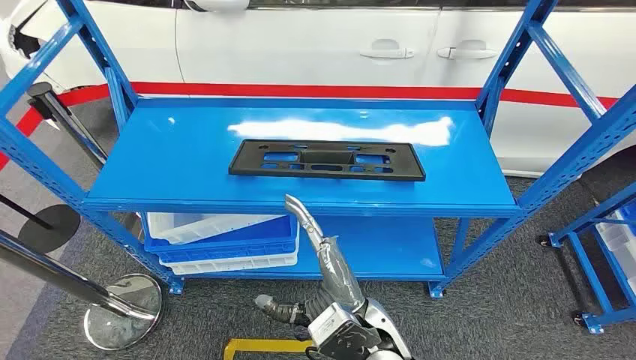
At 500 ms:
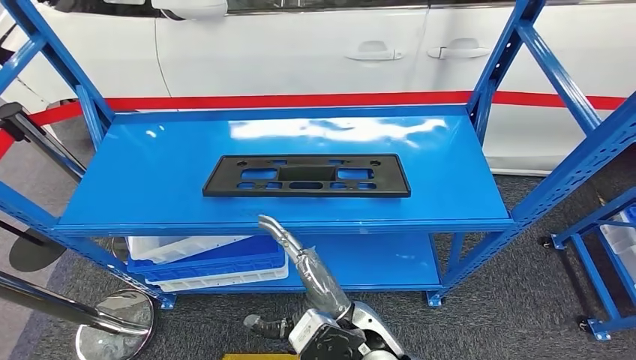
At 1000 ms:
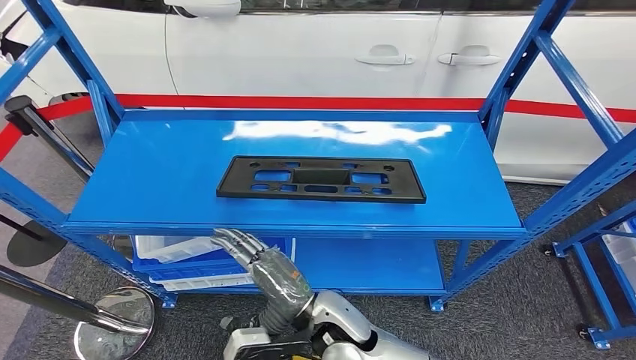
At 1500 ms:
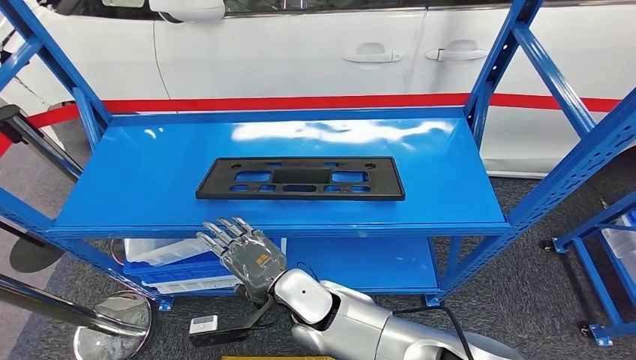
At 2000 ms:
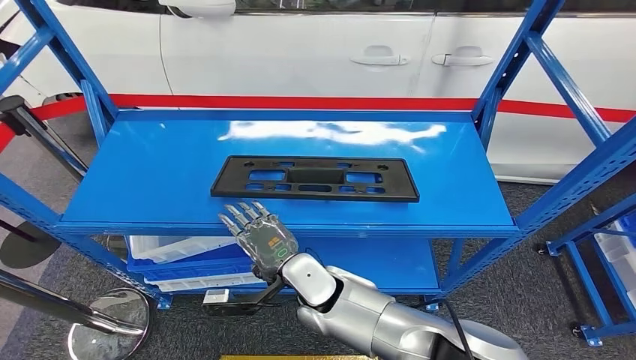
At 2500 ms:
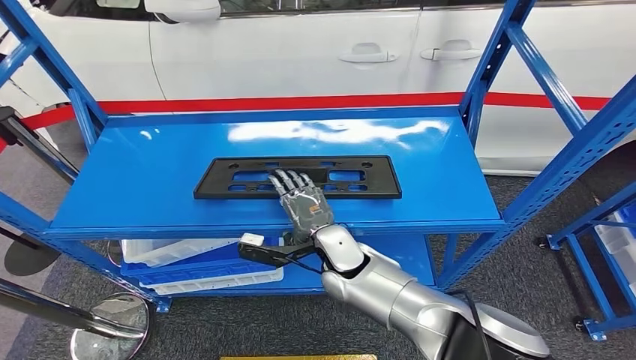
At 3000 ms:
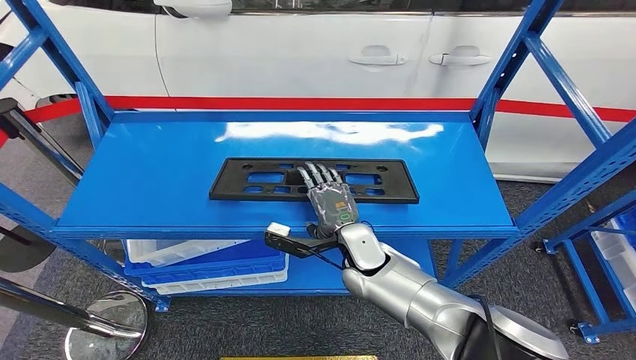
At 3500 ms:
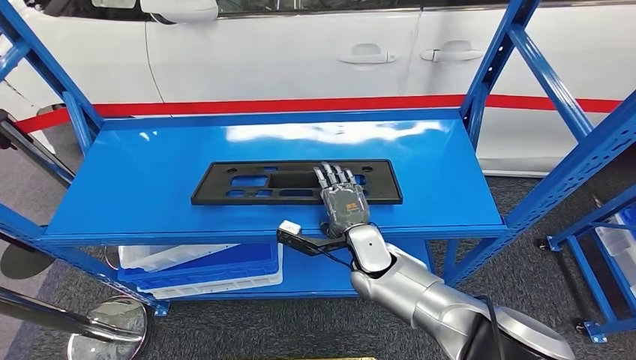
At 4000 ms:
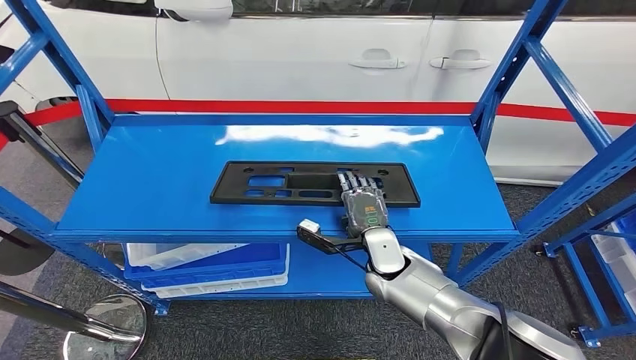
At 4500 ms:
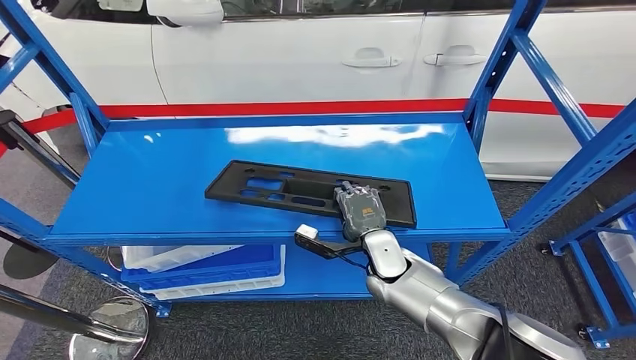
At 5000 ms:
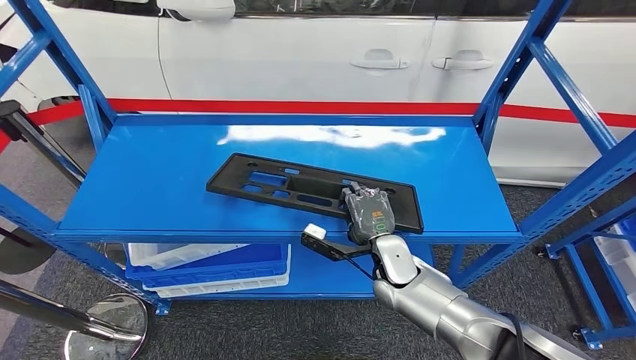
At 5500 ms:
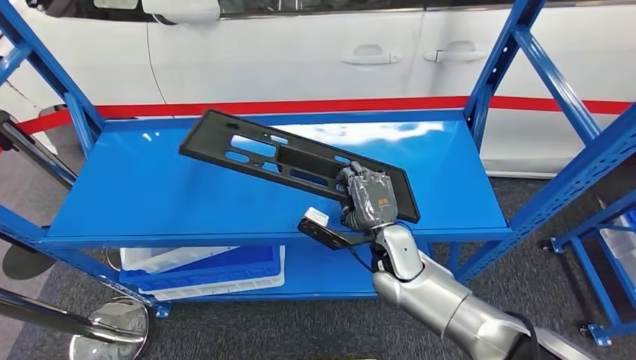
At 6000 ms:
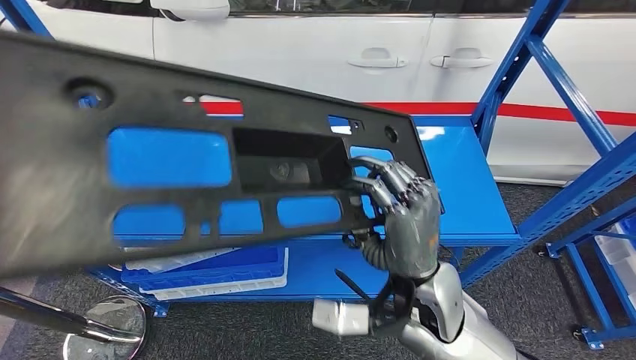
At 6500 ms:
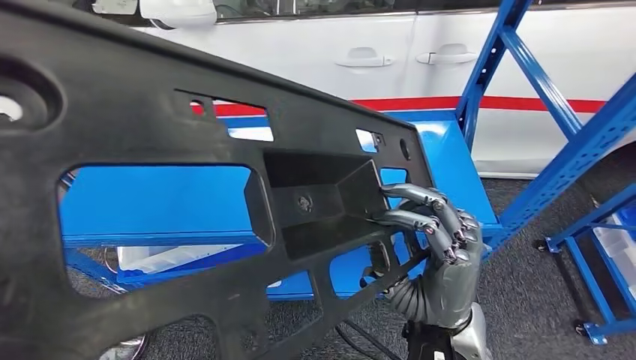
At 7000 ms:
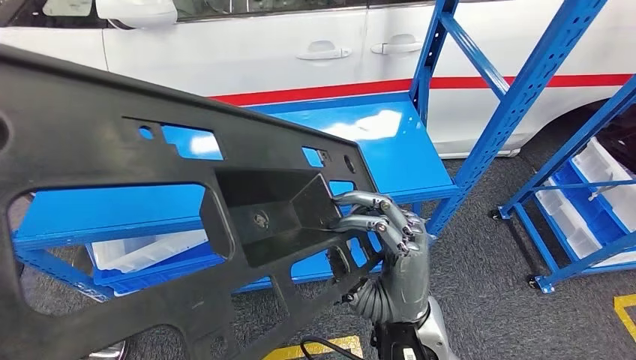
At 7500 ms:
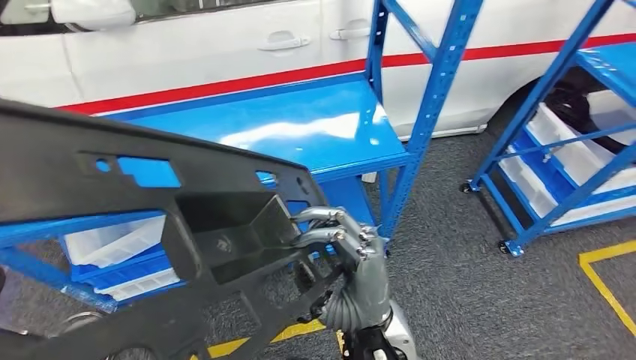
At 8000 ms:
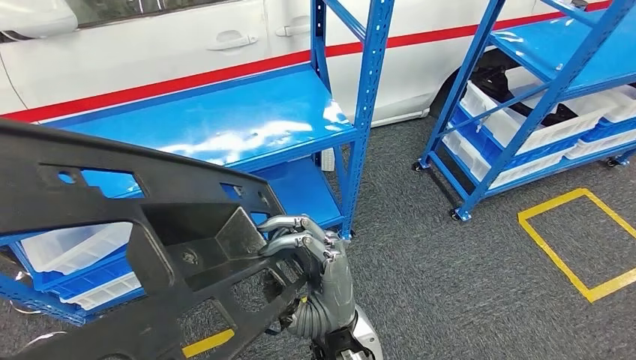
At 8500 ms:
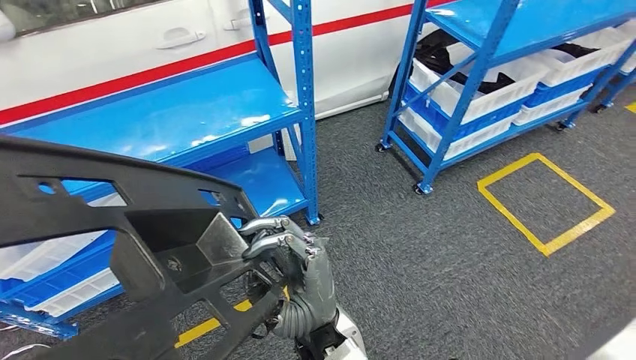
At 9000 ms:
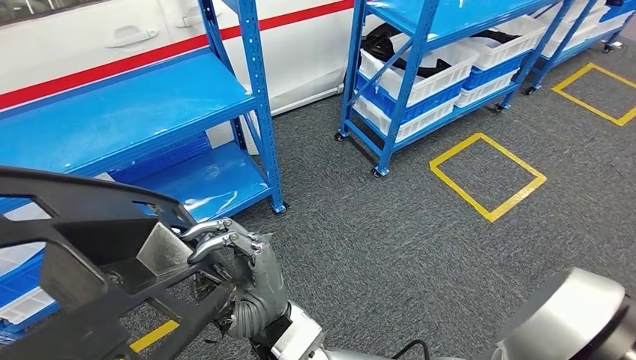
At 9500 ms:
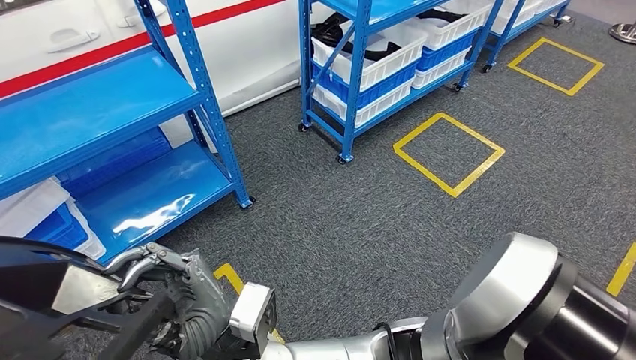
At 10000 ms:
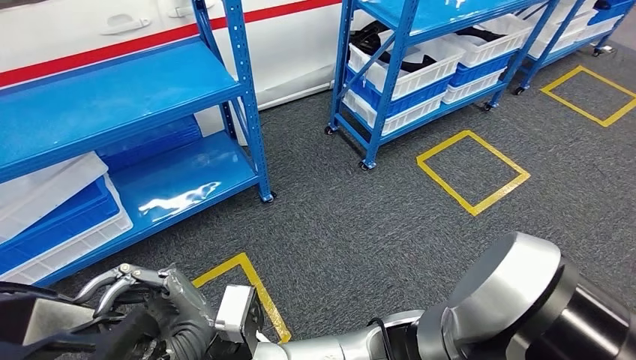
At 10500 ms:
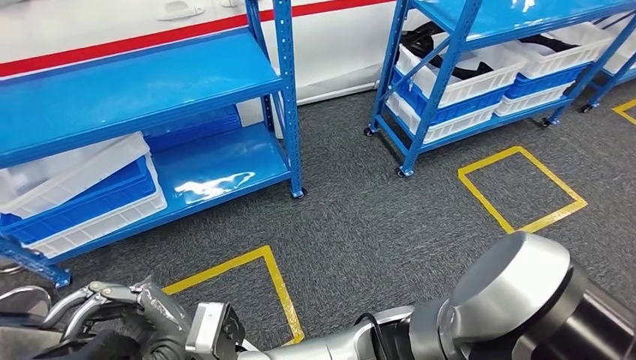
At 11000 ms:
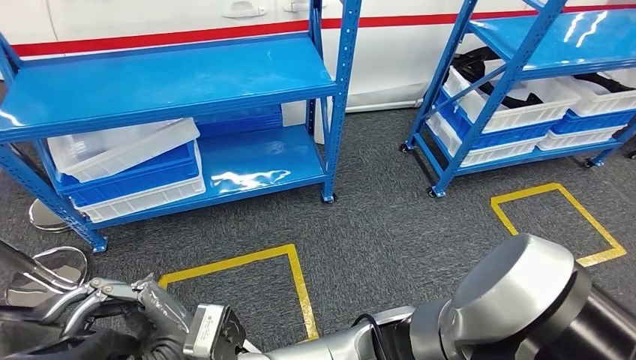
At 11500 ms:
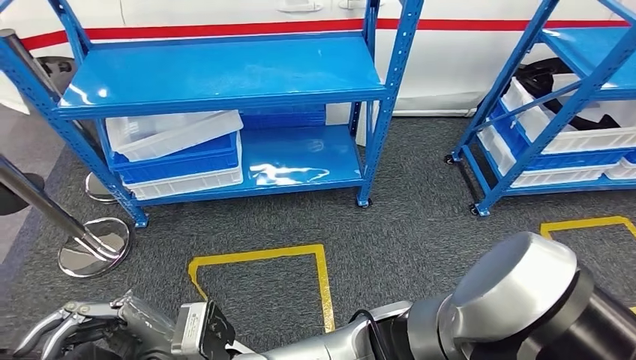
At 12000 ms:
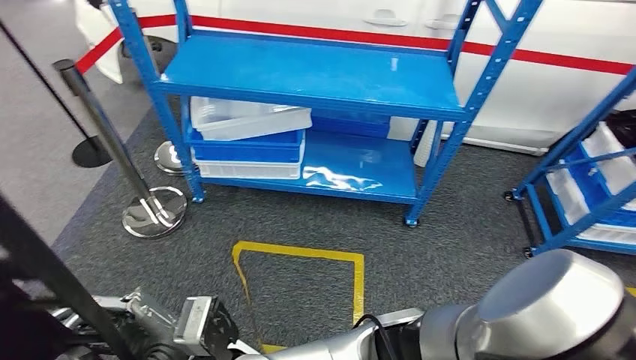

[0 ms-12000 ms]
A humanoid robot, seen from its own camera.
Step, 0 ms to 8500 ms: Pick up the large material from the shelf.

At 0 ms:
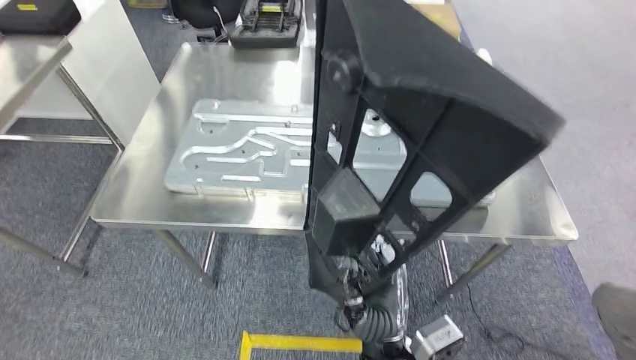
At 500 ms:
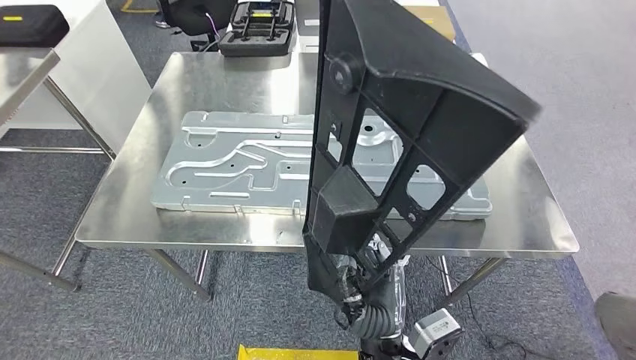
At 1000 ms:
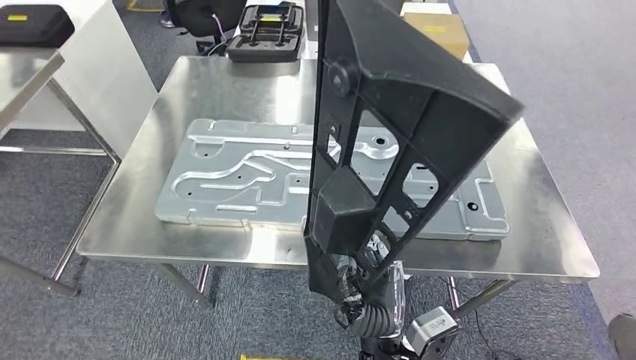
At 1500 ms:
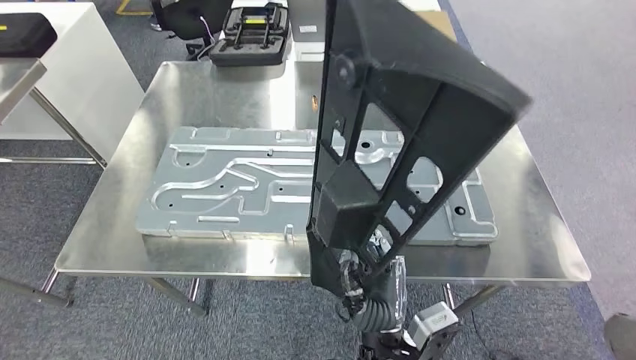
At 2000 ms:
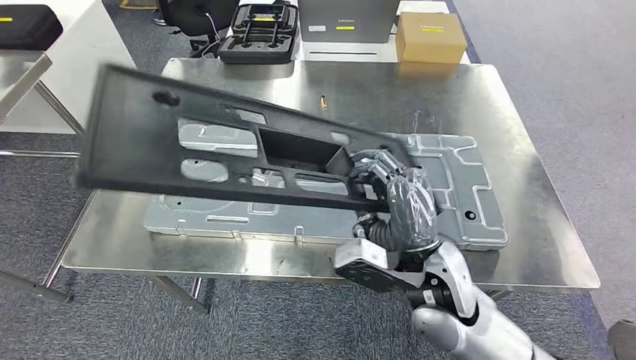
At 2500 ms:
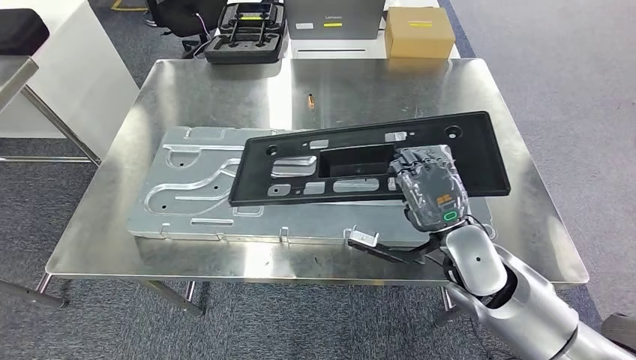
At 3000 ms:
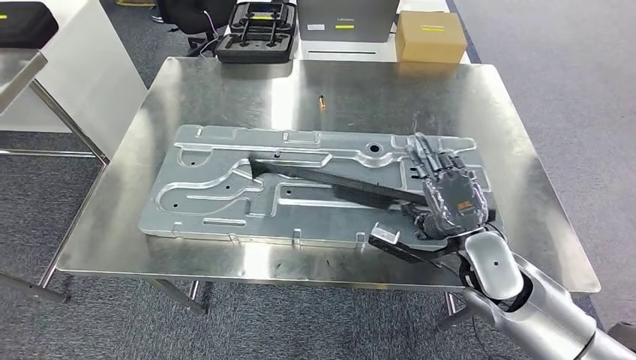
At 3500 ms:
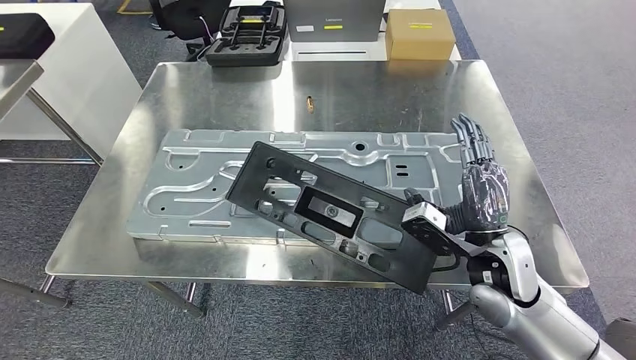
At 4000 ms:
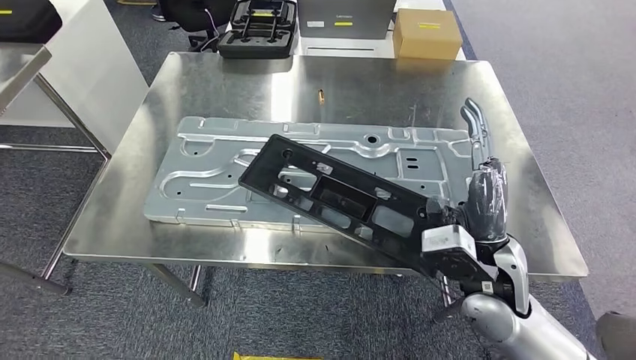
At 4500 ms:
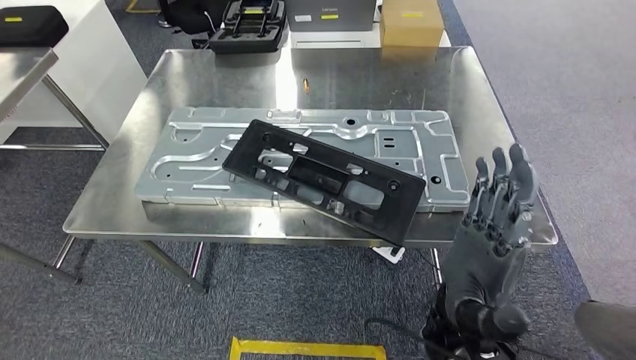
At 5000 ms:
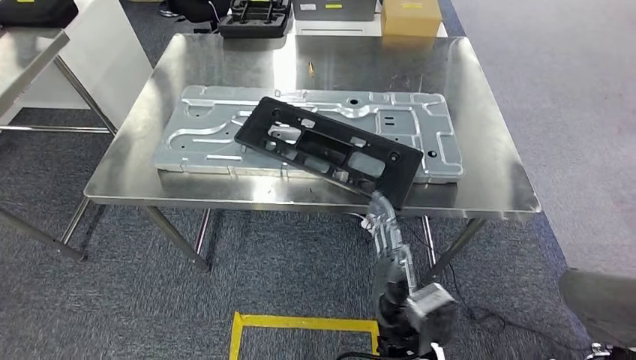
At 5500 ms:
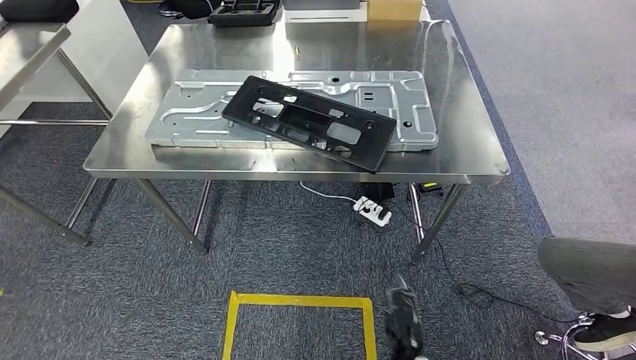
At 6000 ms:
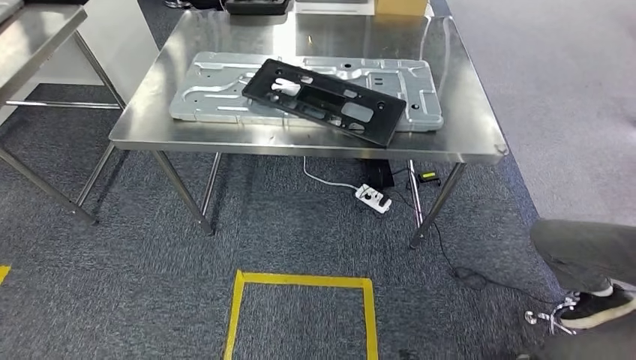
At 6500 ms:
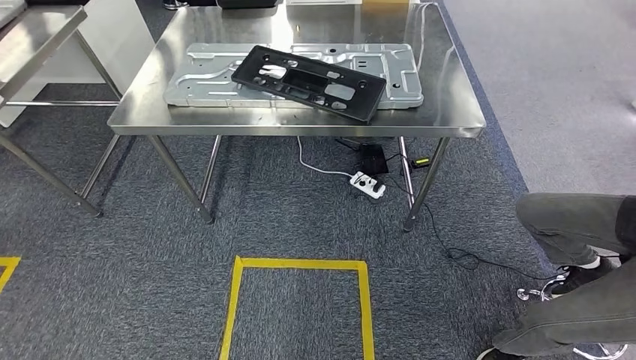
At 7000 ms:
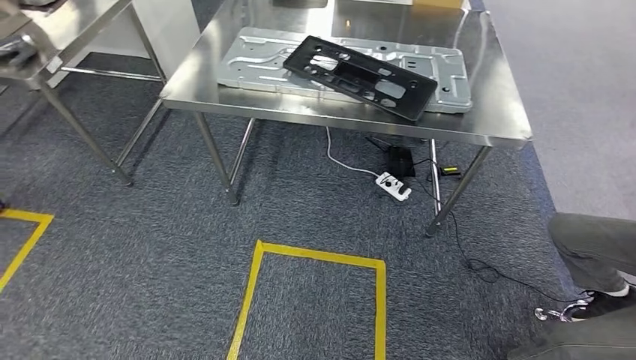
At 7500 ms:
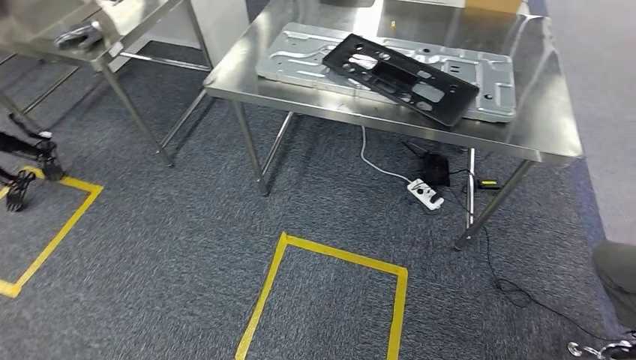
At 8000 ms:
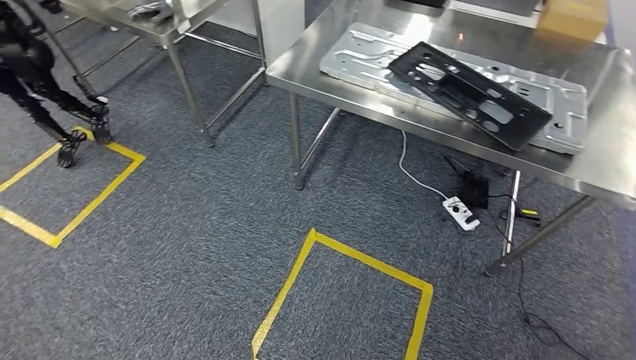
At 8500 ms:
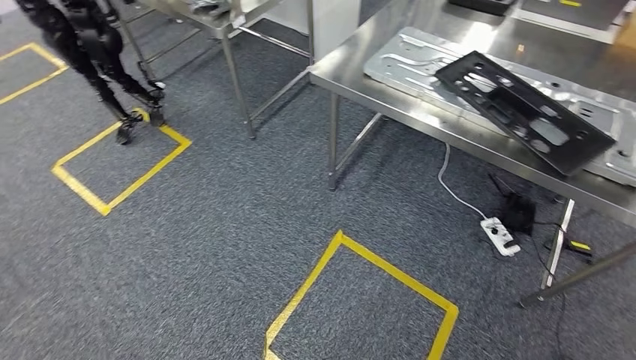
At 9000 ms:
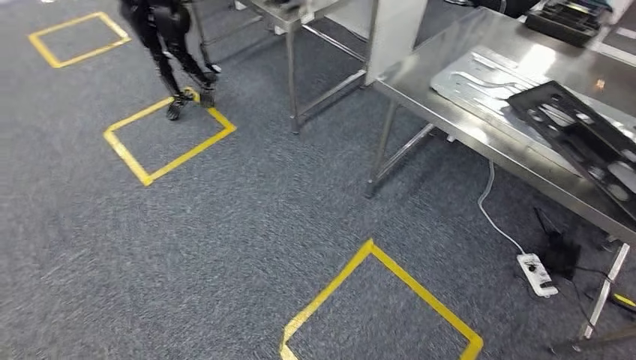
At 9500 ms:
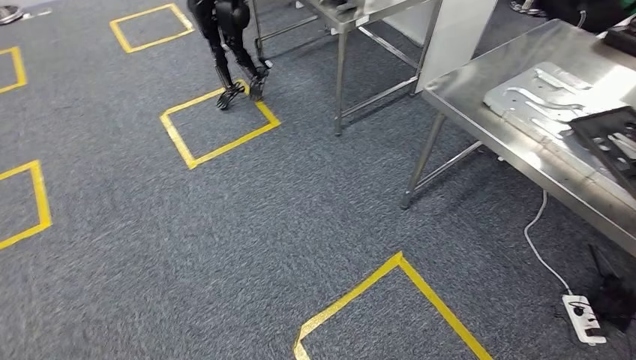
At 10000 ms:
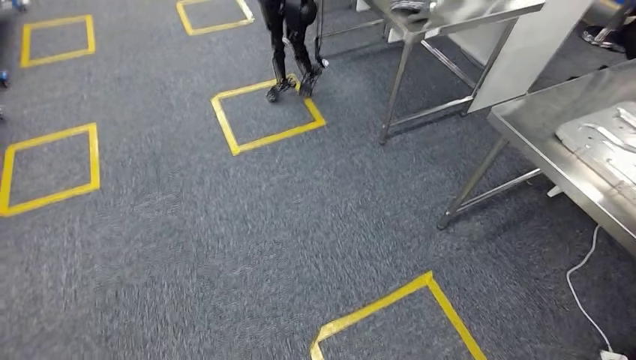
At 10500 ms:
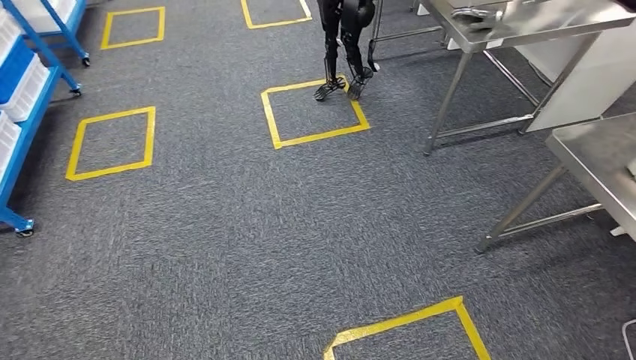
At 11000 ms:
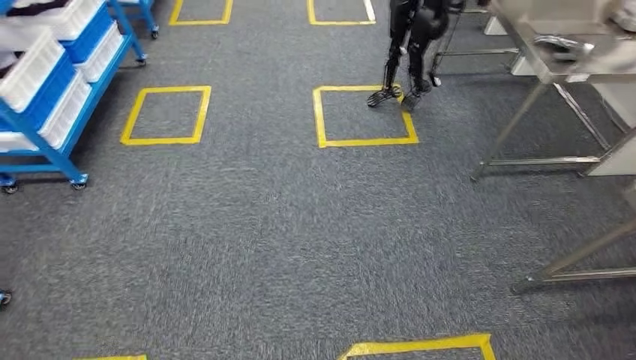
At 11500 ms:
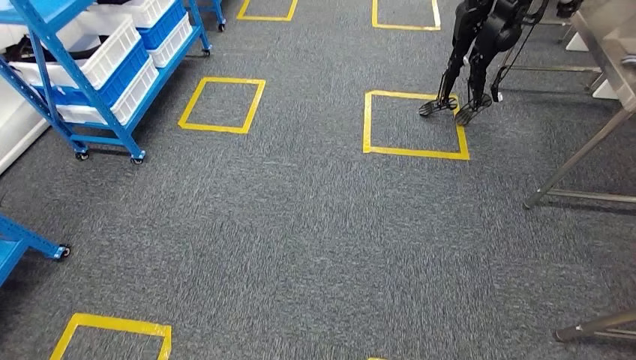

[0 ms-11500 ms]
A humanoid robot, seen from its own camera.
Step, 0 ms to 7500 ms: Insert the large material into the corresponding slot on the workbench.
